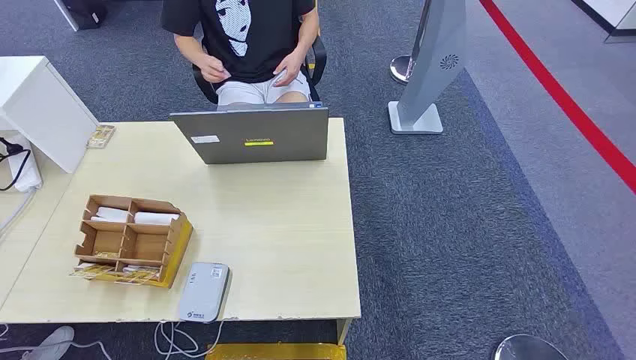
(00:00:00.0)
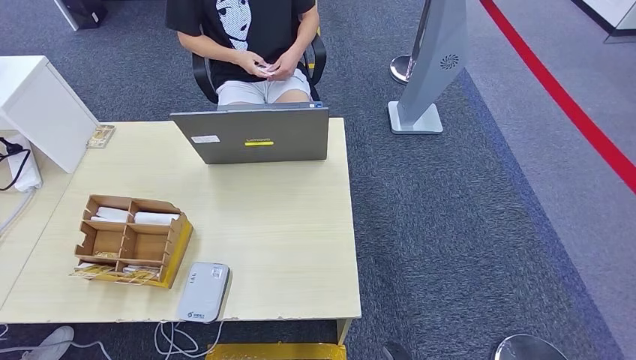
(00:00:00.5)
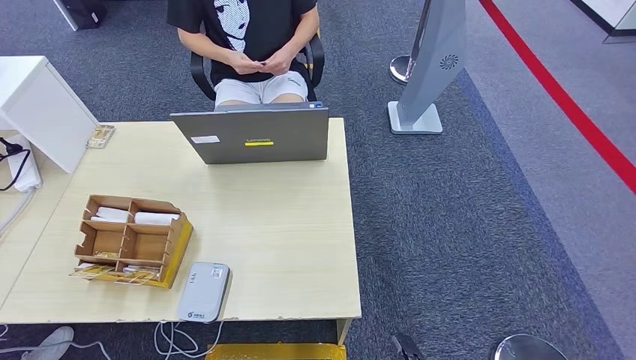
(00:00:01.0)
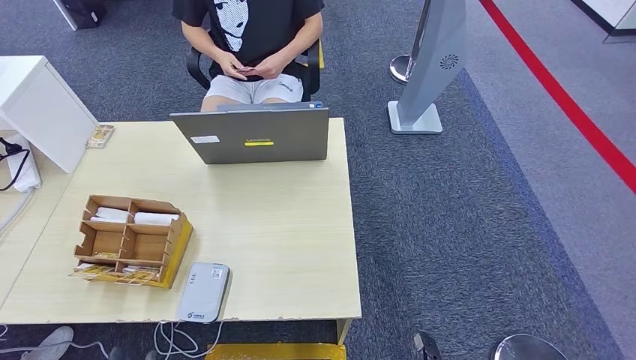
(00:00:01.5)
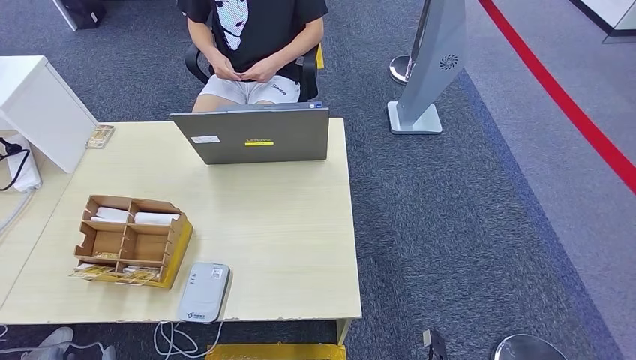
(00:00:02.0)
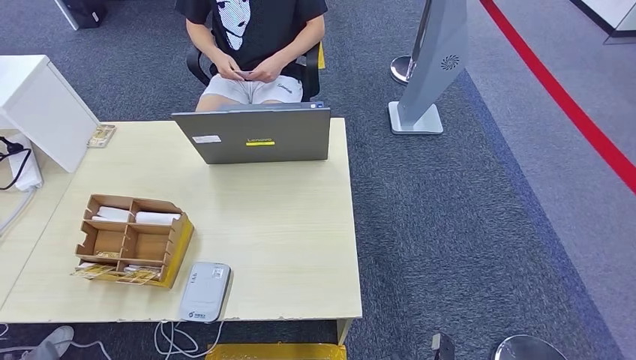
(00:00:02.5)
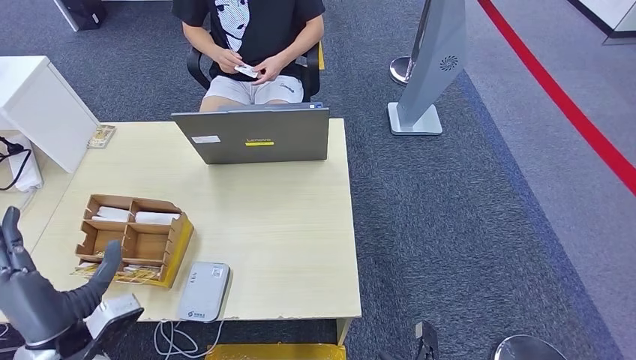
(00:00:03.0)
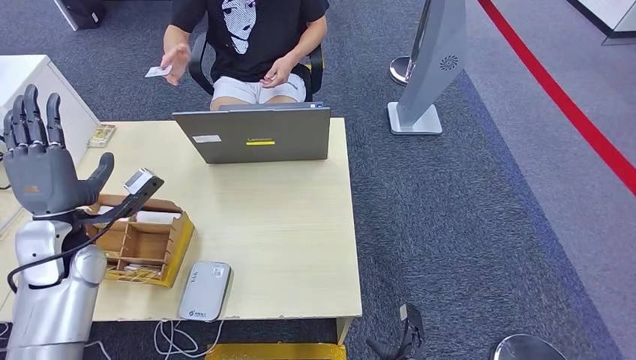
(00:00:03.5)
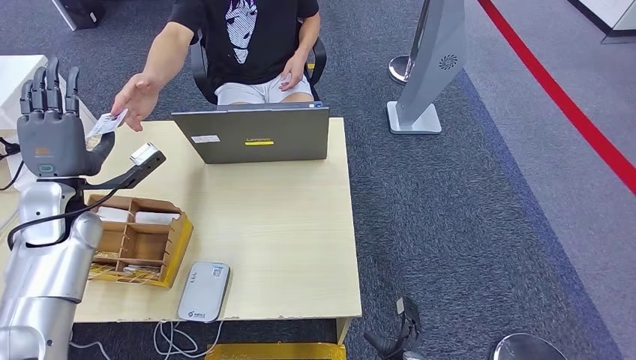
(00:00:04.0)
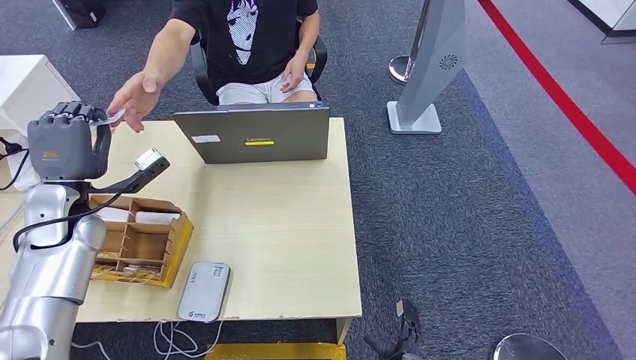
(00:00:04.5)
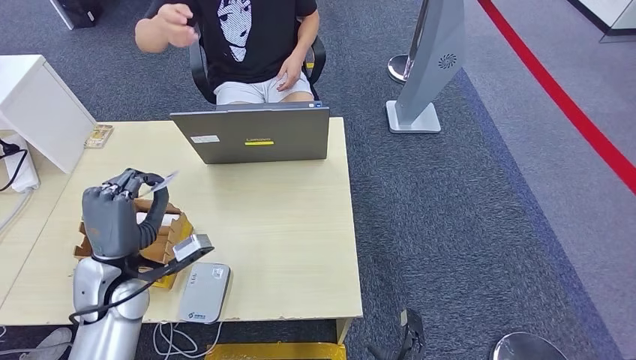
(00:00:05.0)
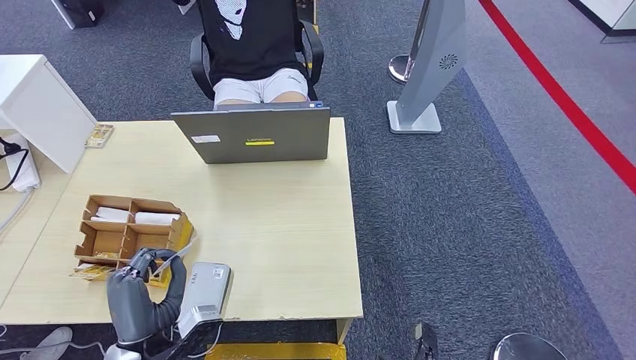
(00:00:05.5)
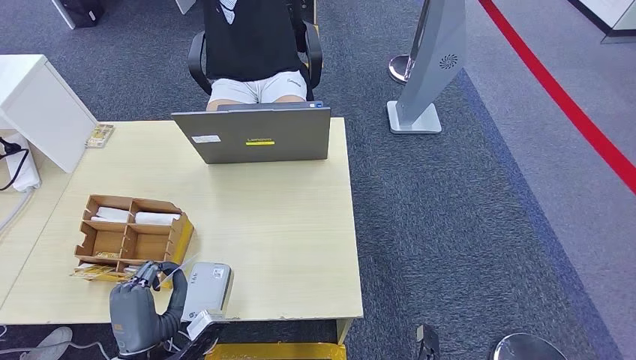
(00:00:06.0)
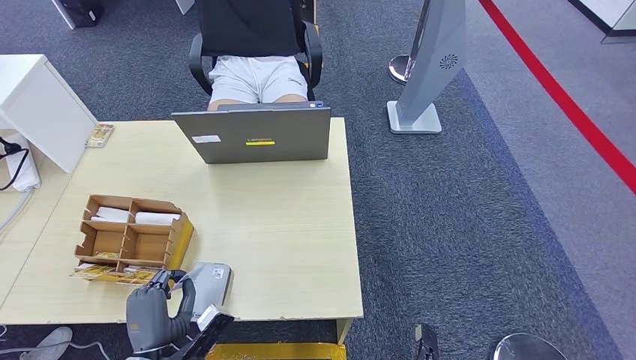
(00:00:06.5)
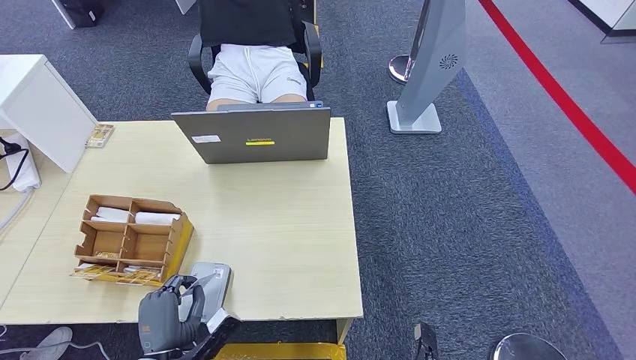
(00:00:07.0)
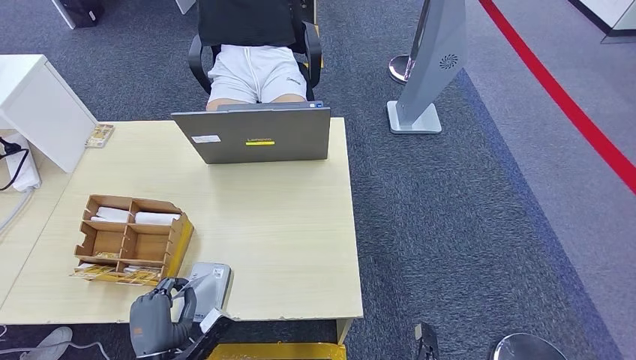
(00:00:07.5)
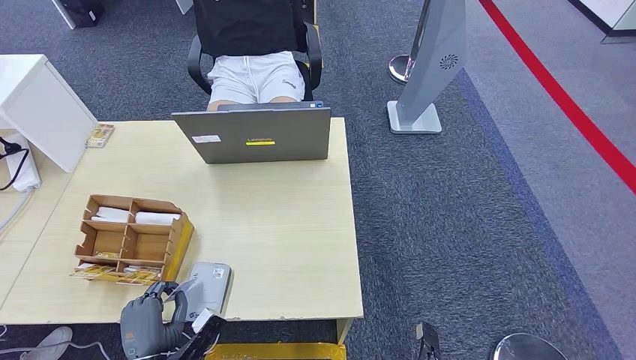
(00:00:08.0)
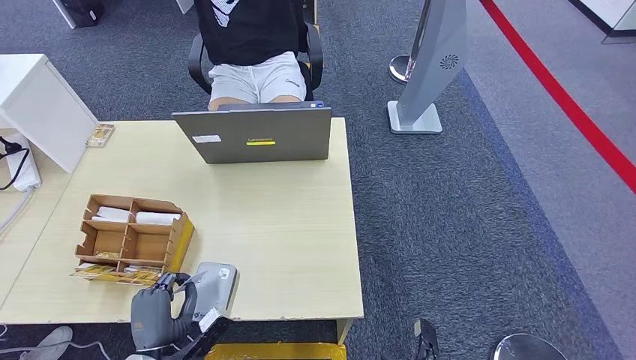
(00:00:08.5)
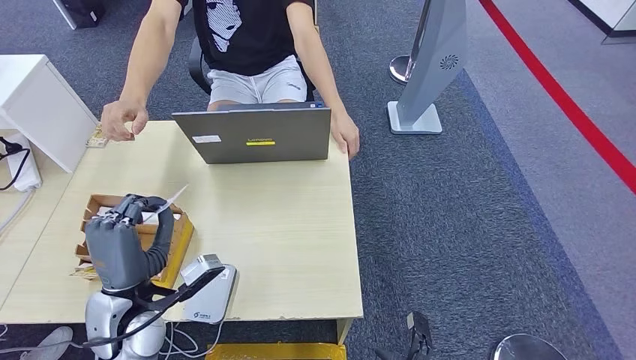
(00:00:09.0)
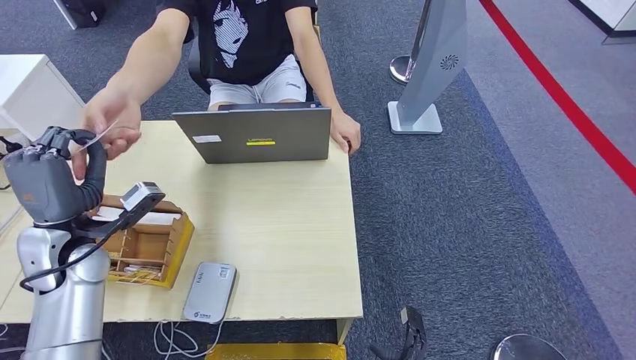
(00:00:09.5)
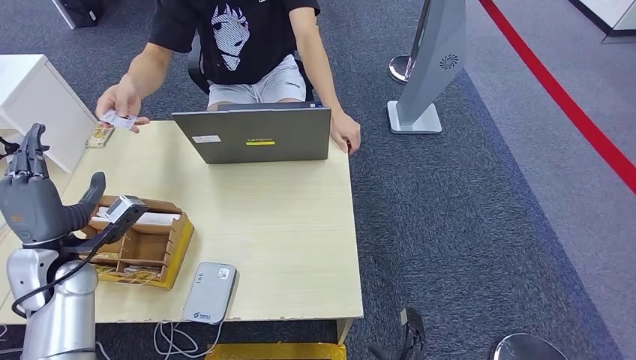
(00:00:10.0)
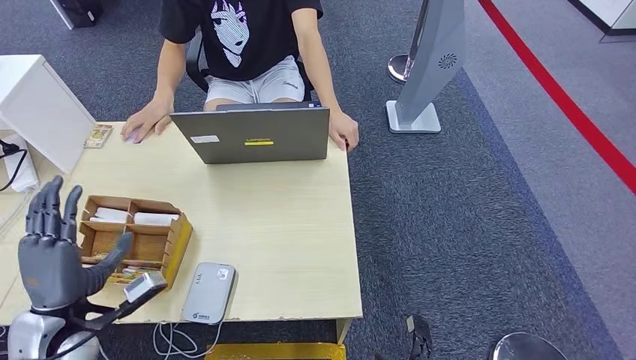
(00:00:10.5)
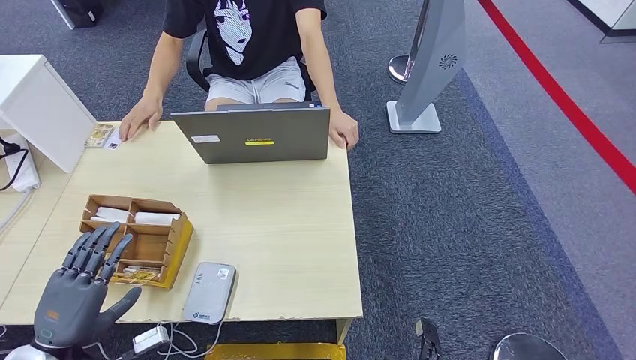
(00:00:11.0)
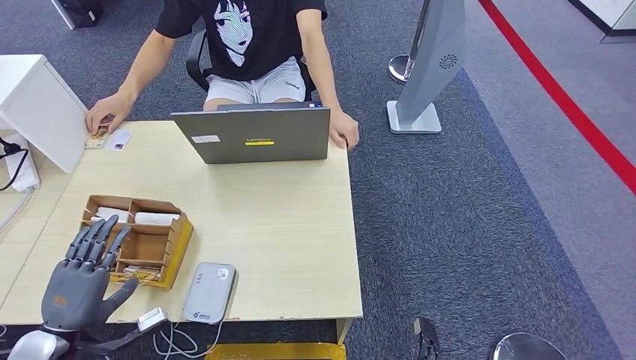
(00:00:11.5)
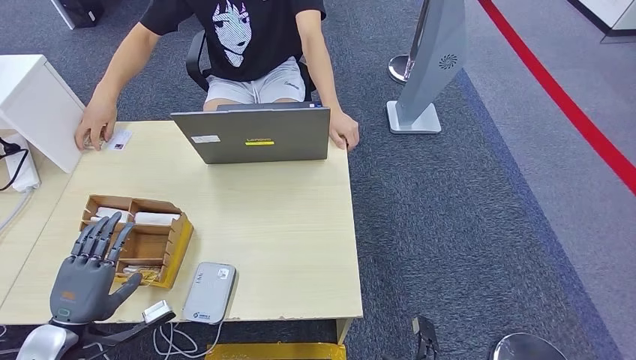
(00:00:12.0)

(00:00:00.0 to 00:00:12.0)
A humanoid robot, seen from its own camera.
Step, 00:00:00.0 - 00:00:04.5: Take the ID card from the person's hand.
Step, 00:00:05.5 - 00:00:08.0: Place the ID card on the card reader.
Step, 00:00:08.5 - 00:00:10.0: Hand the ID card to the person.
00:00:02.0 - 00:00:04.0: The left hand travels forward and upward by approximately 40 cm, while the right hand moves forward, approximately 5 cm.
00:00:04.0 - 00:00:06.0: The right hand ends up about 5 cm from where it was, while the left hand shifts about 30 cm backward, downward and to the right.
00:00:06.0 - 00:00:08.0: The left hand travels downward by roughly 5 cm.
00:00:08.0 - 00:00:10.0: The left hand shifts roughly 25 cm forward, upward and to the left.
00:00:10.0 - 00:00:12.0: The left hand shifts approximately 15 cm backward and downward.

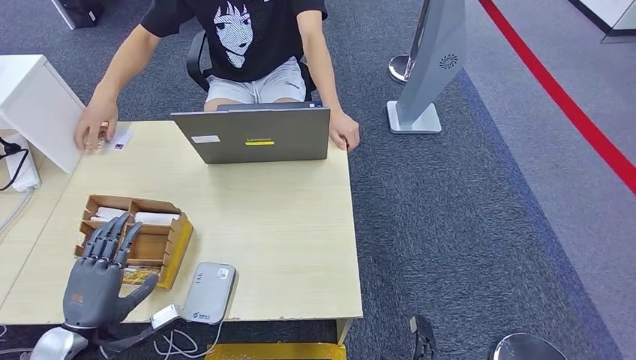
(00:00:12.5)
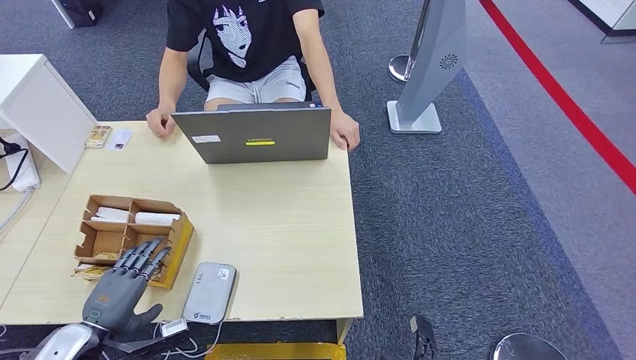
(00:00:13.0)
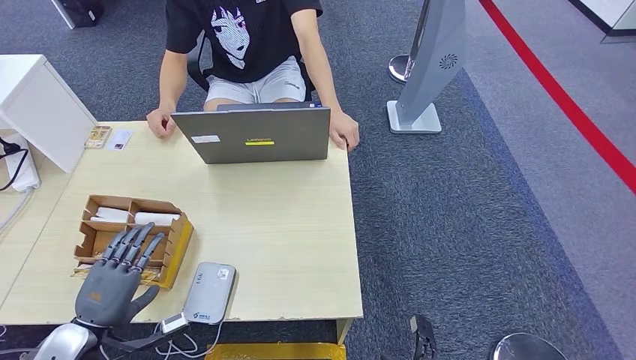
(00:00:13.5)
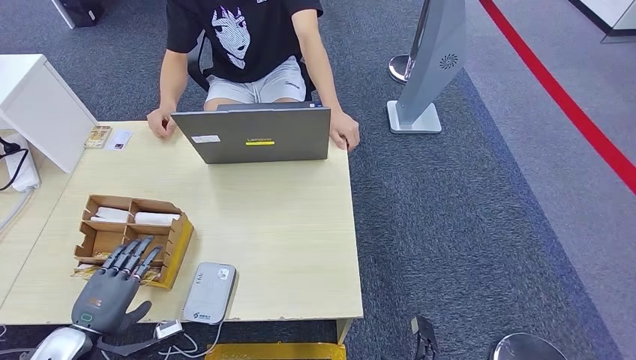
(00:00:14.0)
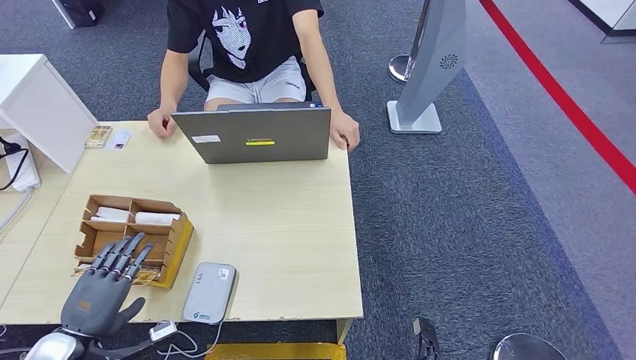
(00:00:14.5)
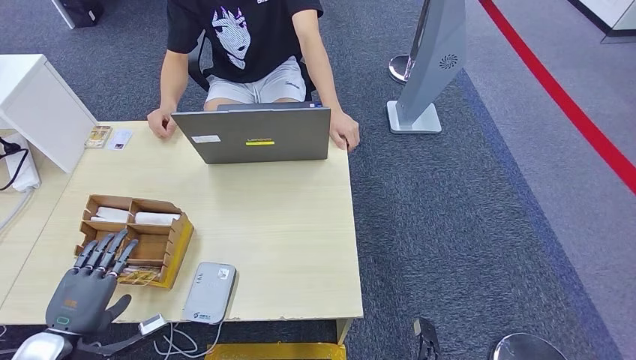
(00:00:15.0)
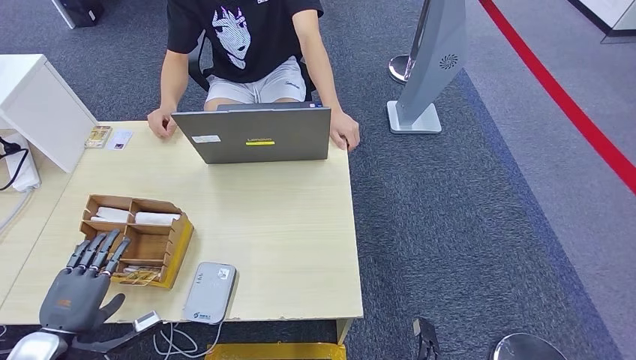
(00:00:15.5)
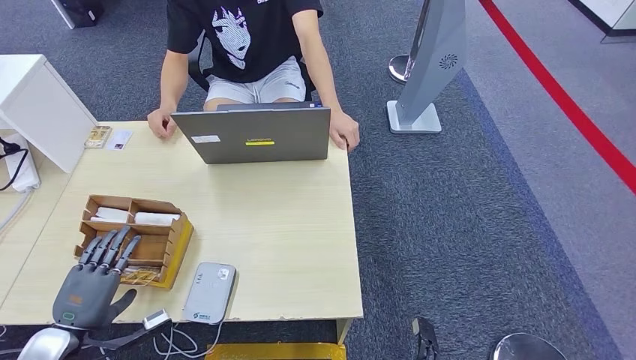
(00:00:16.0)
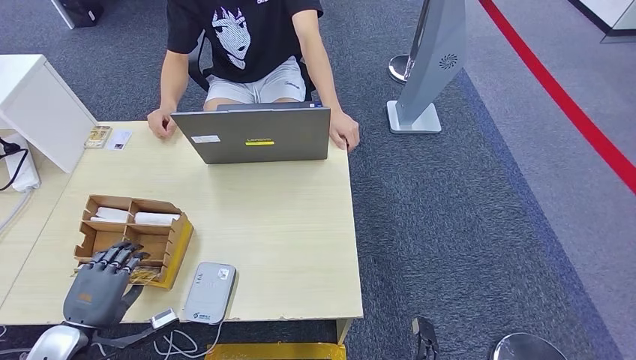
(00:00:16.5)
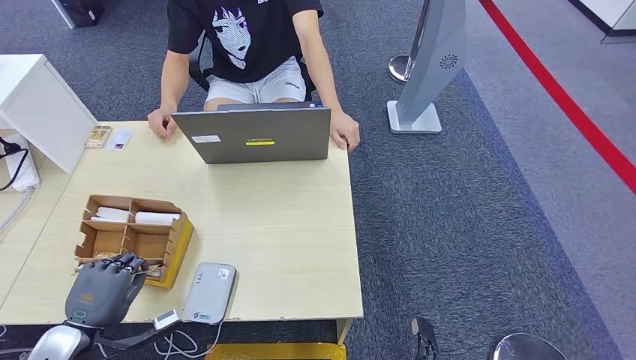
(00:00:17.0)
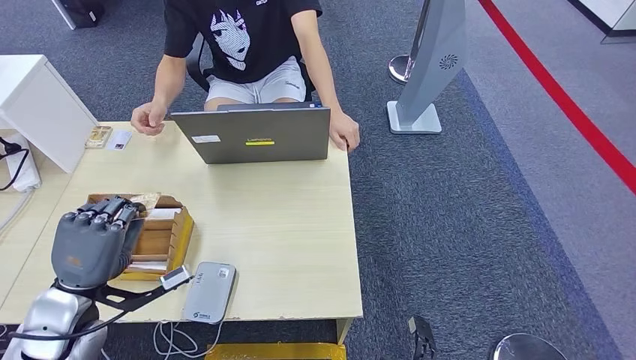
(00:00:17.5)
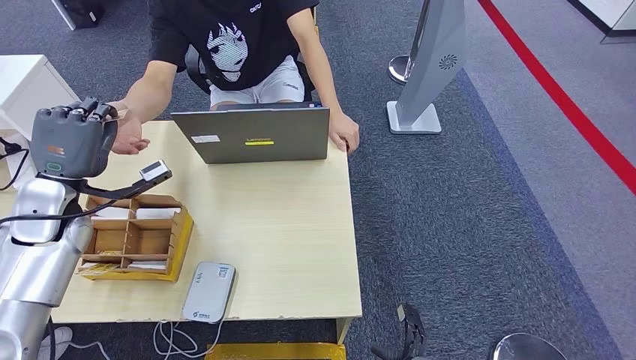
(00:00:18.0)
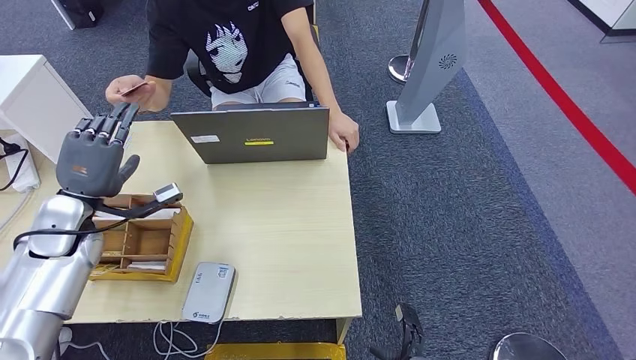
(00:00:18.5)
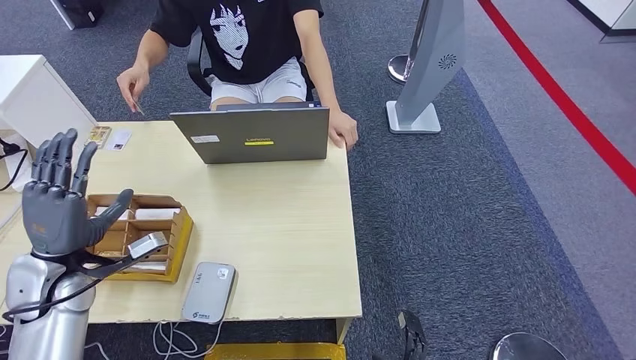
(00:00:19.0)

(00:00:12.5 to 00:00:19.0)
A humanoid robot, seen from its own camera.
Step, 00:00:12.5 - 00:00:17.0: Pick up the room key from the key card box.
Step, 00:00:17.5 - 00:00:19.0: Hand the room key to the person.
00:00:14.5 - 00:00:17.0: The hands move only a little.
00:00:17.0 - 00:00:19.0: The left hand is displaced forward and upward by about 15 cm.
